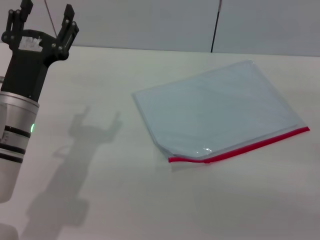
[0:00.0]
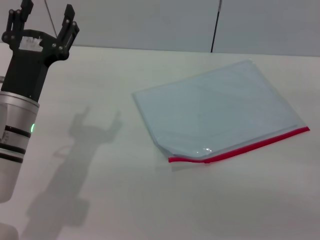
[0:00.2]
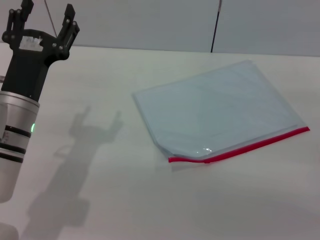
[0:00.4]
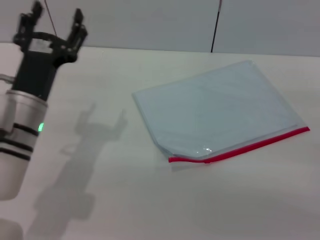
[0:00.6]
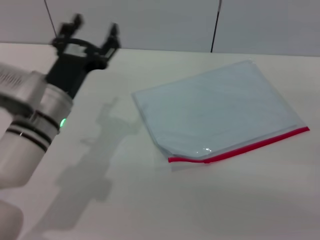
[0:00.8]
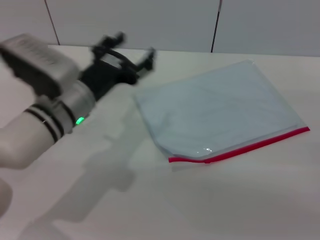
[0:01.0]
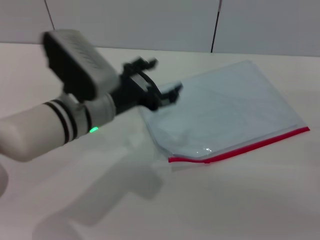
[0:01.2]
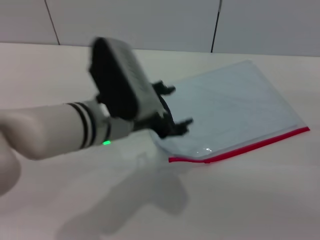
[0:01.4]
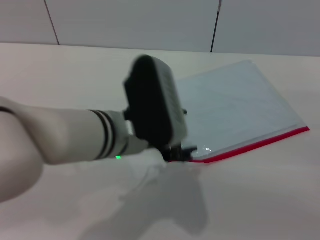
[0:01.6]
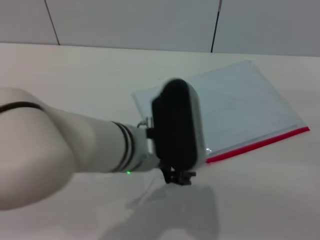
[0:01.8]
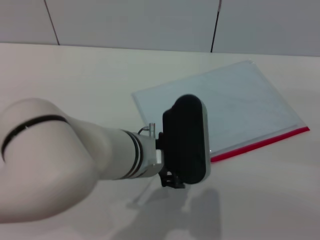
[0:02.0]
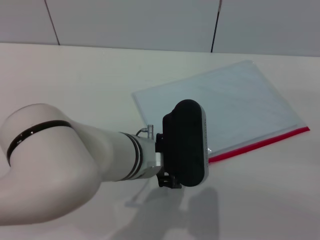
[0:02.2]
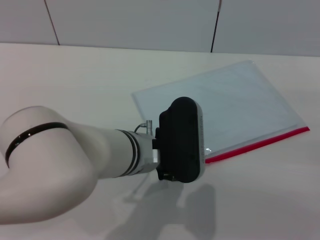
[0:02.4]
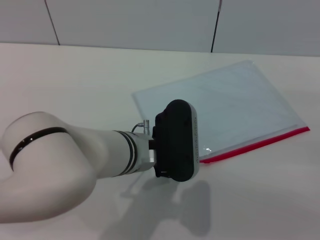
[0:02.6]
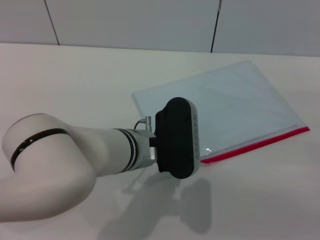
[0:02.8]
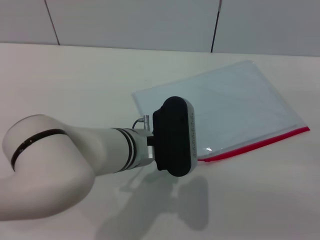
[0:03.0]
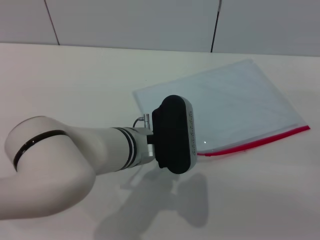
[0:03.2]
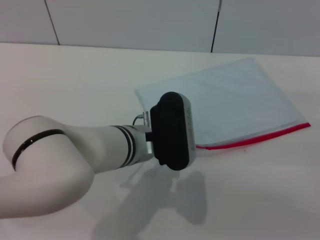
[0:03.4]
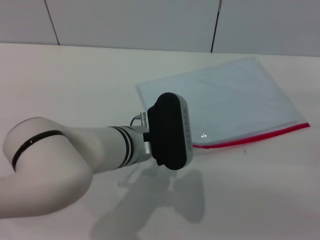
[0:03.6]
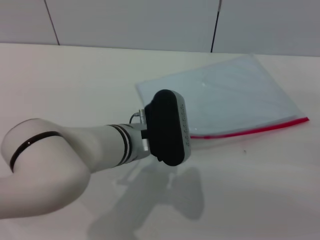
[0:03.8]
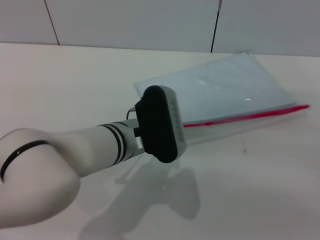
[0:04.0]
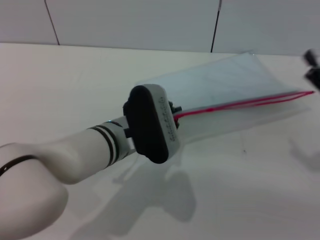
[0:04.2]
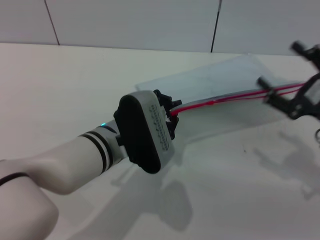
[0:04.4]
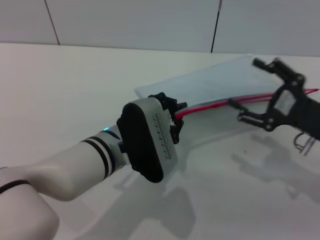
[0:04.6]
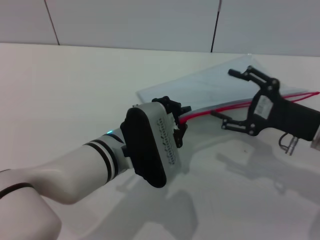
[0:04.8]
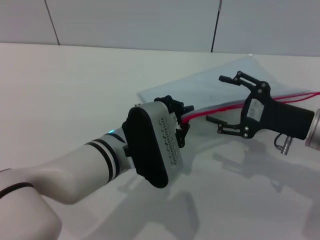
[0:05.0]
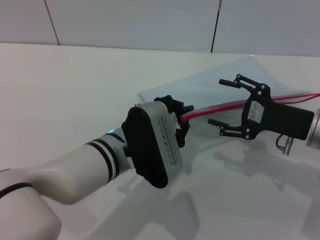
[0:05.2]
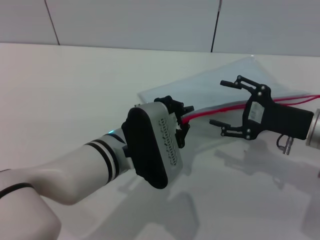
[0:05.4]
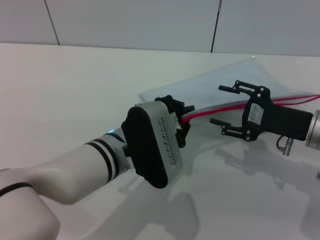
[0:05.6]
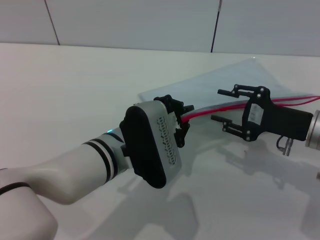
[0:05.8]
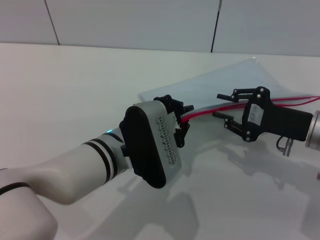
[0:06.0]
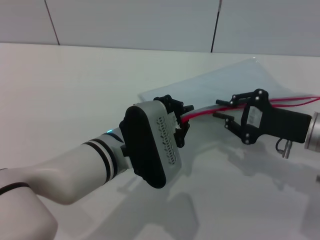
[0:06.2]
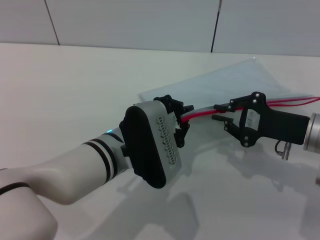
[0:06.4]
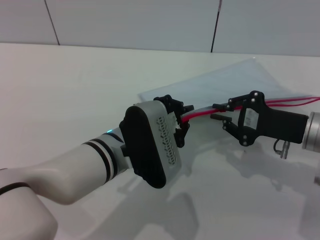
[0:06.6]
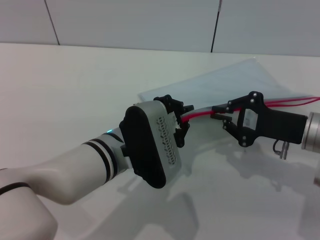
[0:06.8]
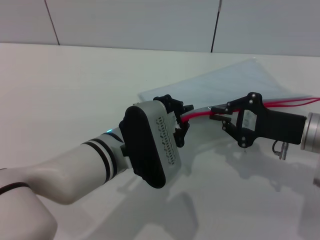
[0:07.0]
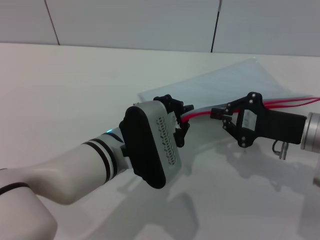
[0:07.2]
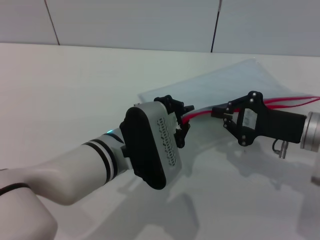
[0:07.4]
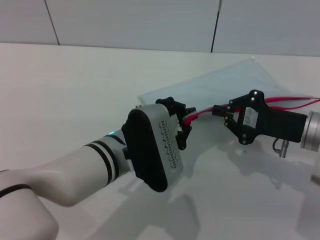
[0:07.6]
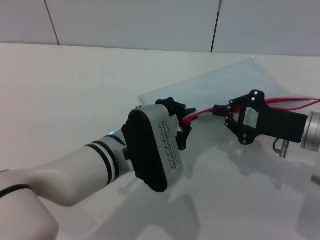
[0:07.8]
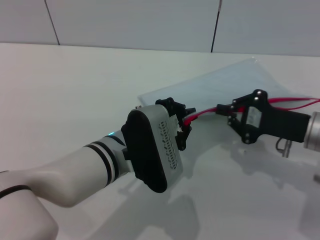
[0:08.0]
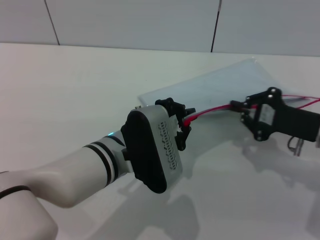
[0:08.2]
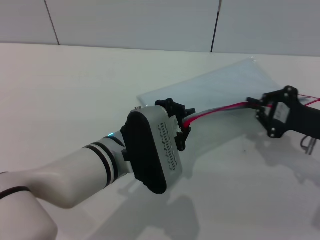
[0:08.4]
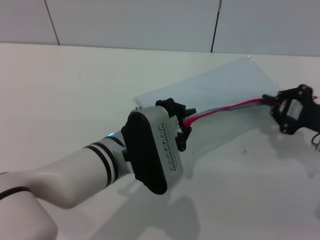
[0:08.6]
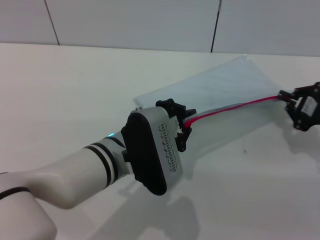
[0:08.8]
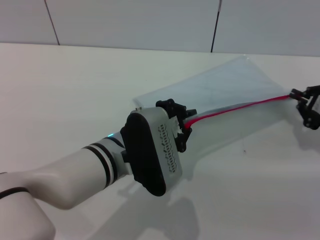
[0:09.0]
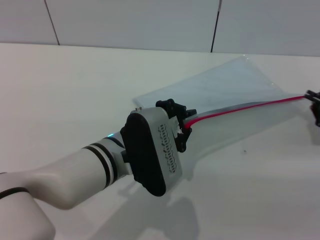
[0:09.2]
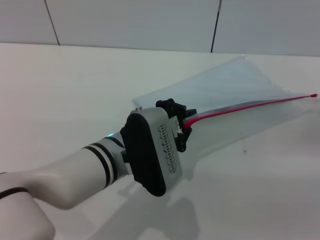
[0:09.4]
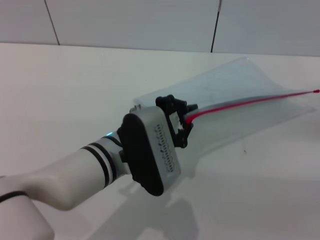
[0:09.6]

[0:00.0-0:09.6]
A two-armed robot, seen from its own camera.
Step, 0:00.0 to 0:04.8: Pick up the transparent plastic bag with the left gripper.
0:00.0 to 0:01.6: The left gripper is displaced to the right and upward by about 15 cm.
0:01.6 to 0:03.2: The left gripper is displaced downward by some 5 cm.
0:03.2 to 0:04.8: The right gripper shifts some 10 cm to the left; the left gripper closes its fingers.
0:04.8 to 0:06.4: The right gripper closes its fingers.
0:06.4 to 0:08.0: The two grippers keep their place.
0:08.0 to 0:09.6: The right gripper moves to the right, about 15 cm.

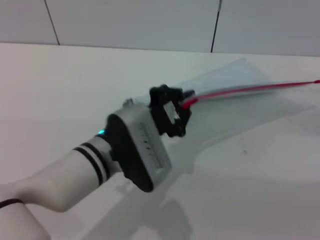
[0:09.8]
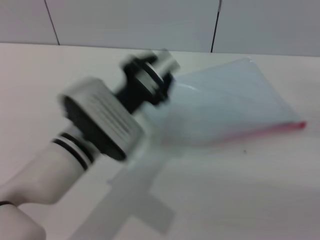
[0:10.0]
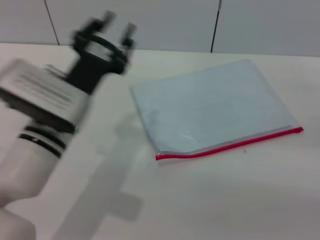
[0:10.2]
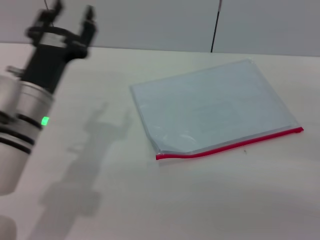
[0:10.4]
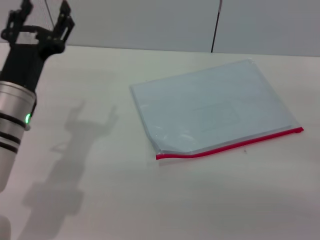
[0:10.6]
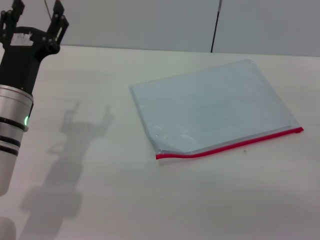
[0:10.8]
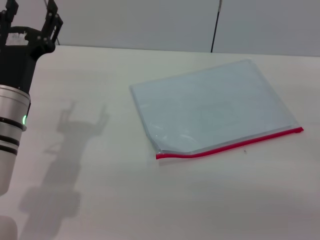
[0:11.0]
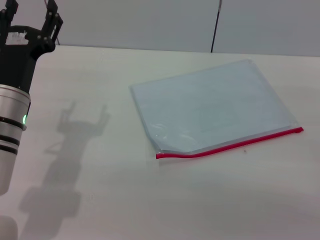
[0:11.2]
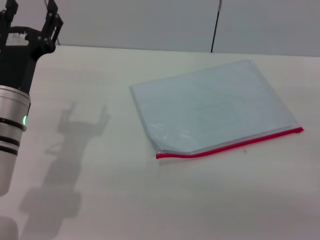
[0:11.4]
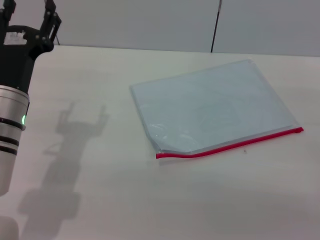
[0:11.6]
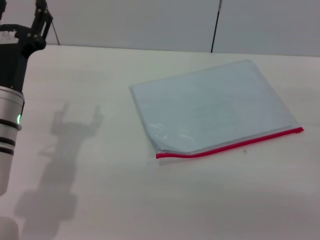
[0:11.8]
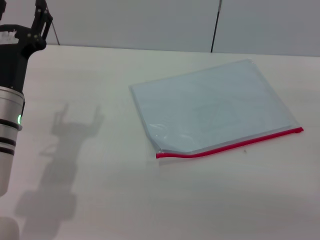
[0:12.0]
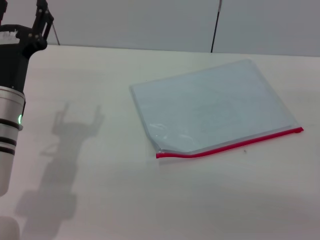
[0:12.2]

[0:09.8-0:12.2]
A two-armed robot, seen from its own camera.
Step, 0:09.8 to 0:10.6: Place the transparent plastic bag.
0:09.8 to 0:11.0: The left gripper heads to the left, covering roughly 15 cm, and opens up. Meanwhile the right gripper shifts about 5 cm backward, and opens its fingers.
0:11.0 to 0:12.2: The grippers stay close to where they were, moving slightly.
